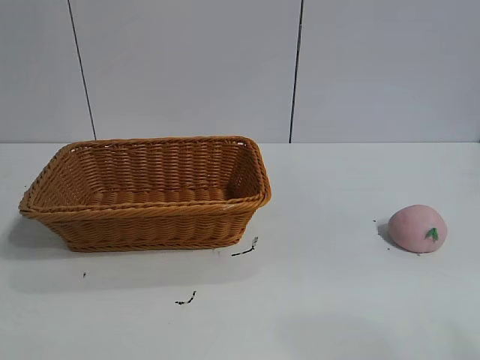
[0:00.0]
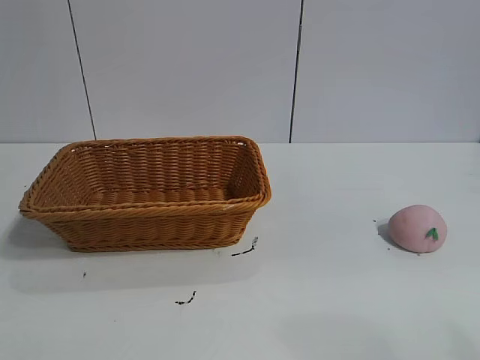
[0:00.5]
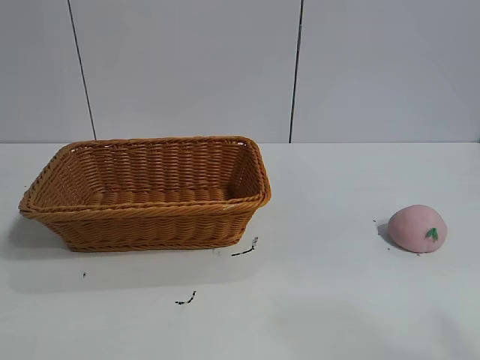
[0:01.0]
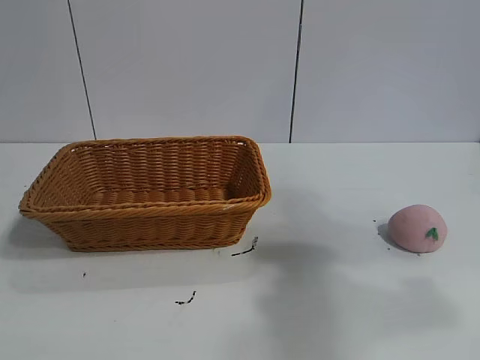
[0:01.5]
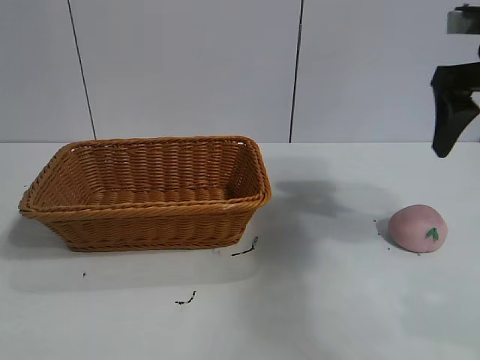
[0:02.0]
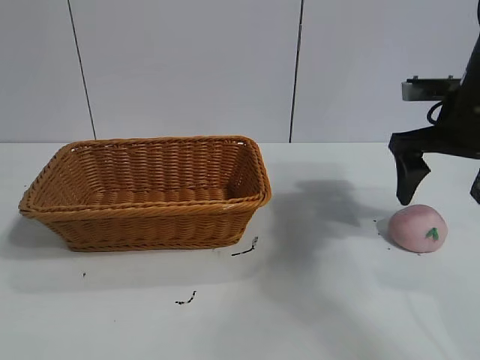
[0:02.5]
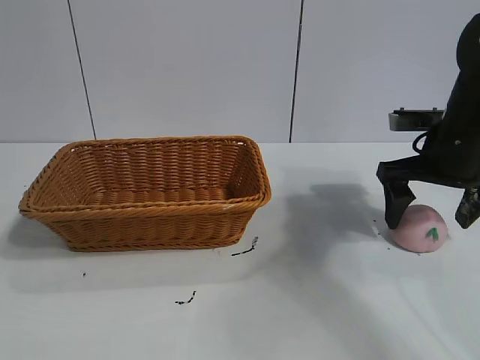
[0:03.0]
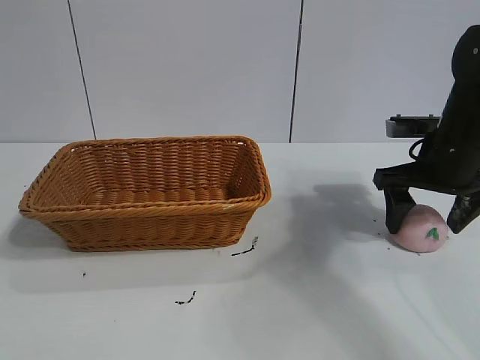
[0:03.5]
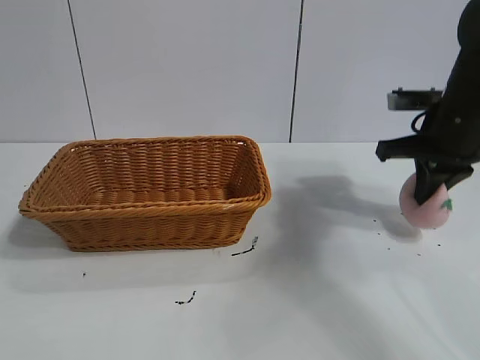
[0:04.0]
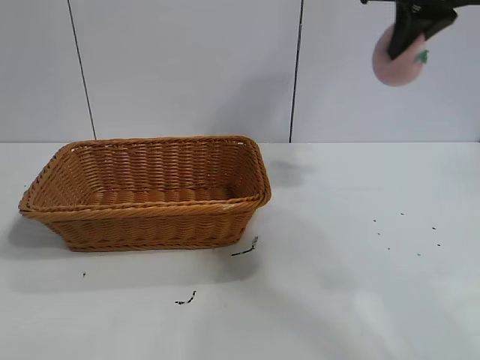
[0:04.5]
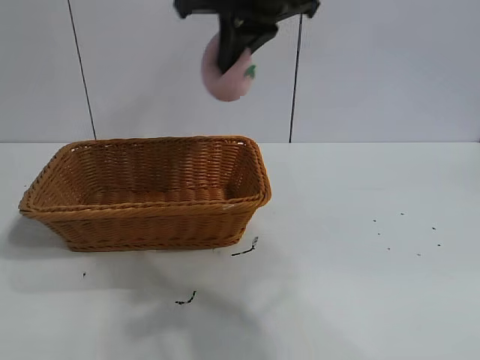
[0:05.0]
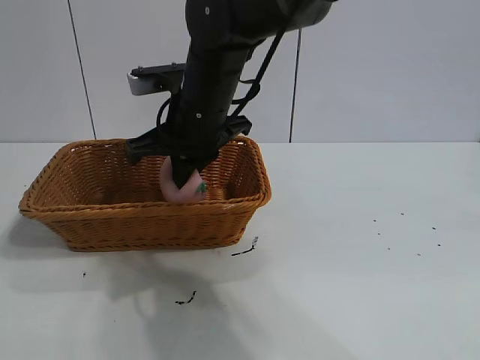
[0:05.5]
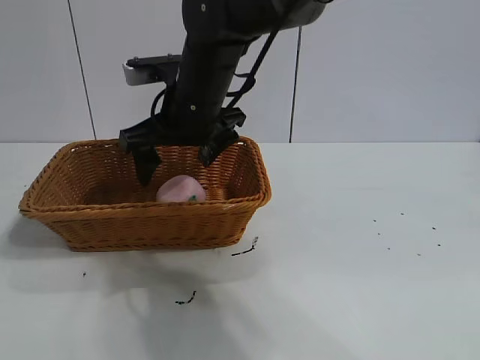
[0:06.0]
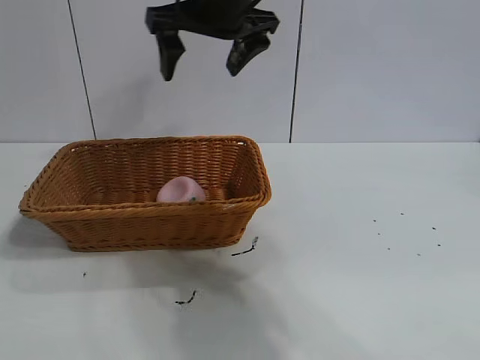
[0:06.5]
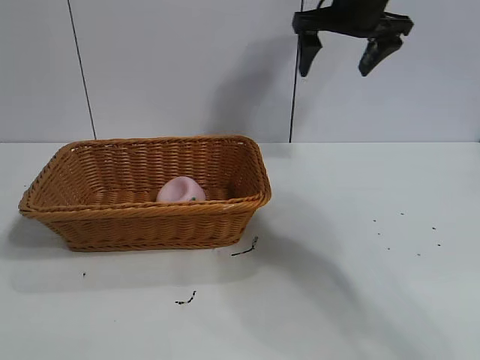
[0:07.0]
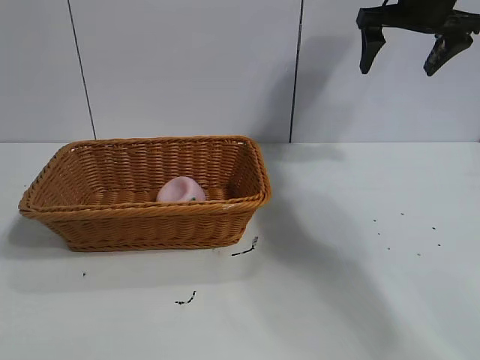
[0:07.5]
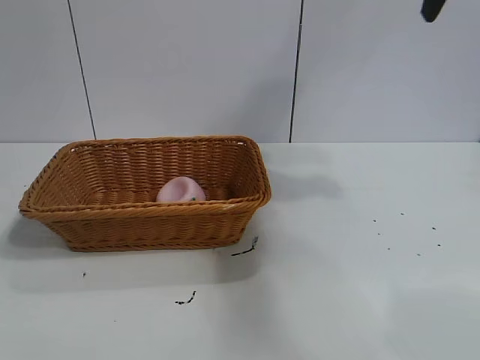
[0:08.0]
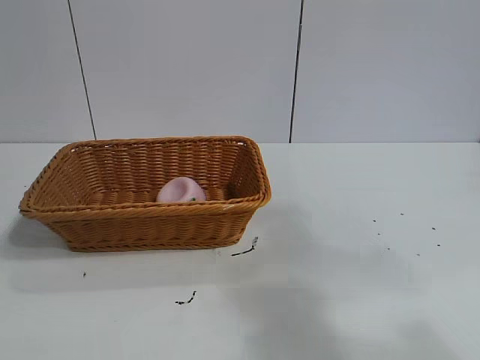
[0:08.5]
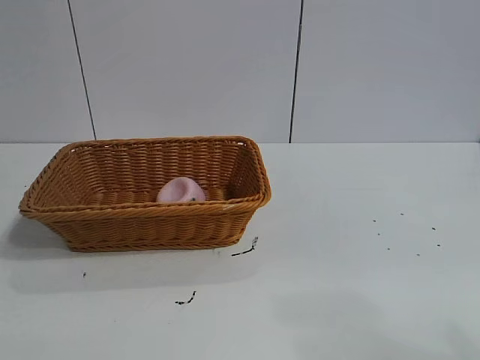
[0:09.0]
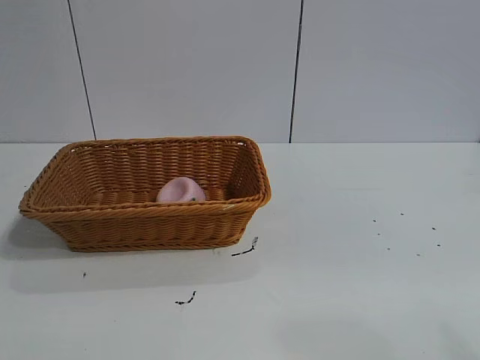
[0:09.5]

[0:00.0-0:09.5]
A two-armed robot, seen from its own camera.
Task of the whole recording: pick up the peach and put it into the basket.
Step, 0:01.0 to 0:04.0: Grasp the peach with right gripper.
Step, 0:04.5 to 0:06.0: Place the peach in the basket with right gripper.

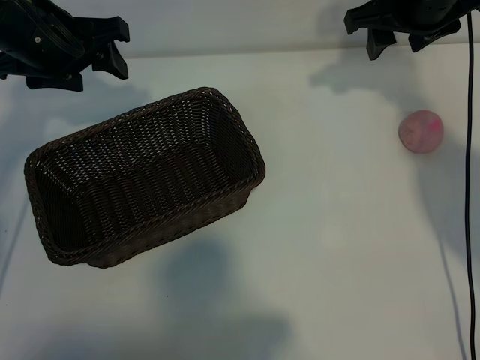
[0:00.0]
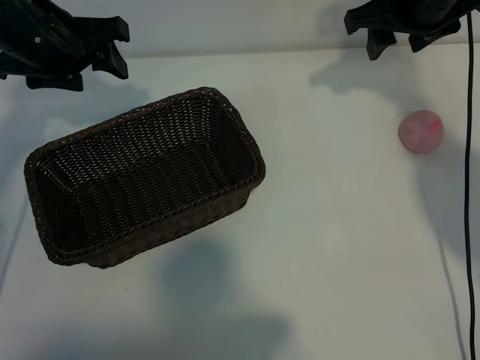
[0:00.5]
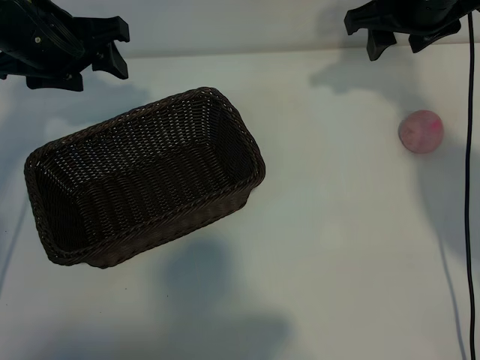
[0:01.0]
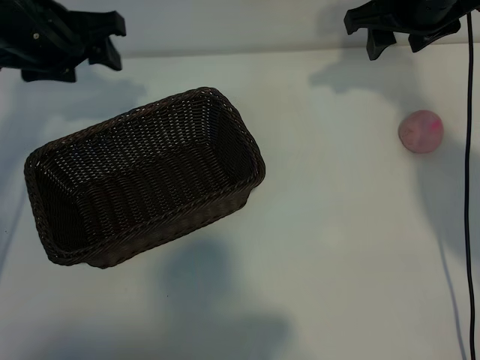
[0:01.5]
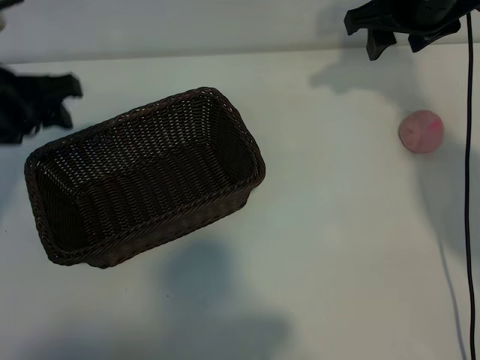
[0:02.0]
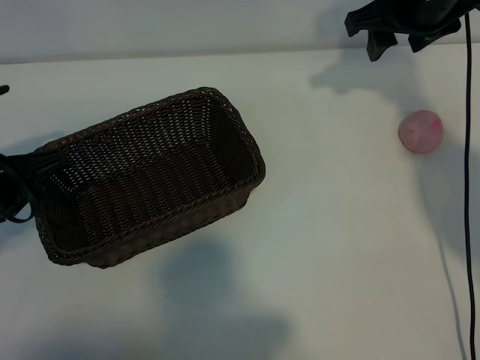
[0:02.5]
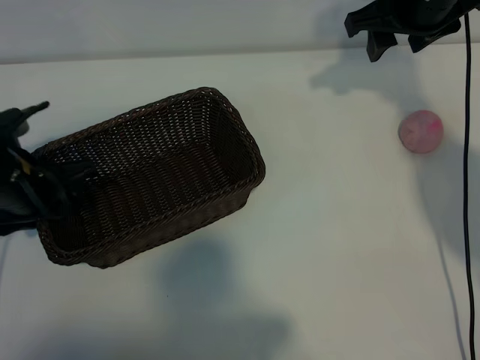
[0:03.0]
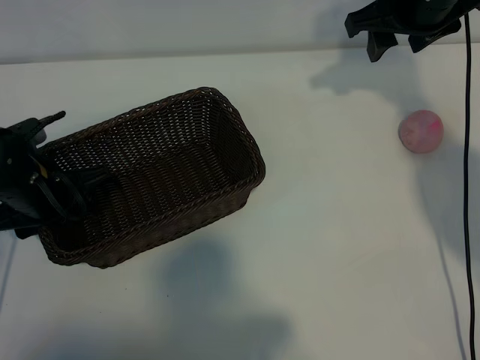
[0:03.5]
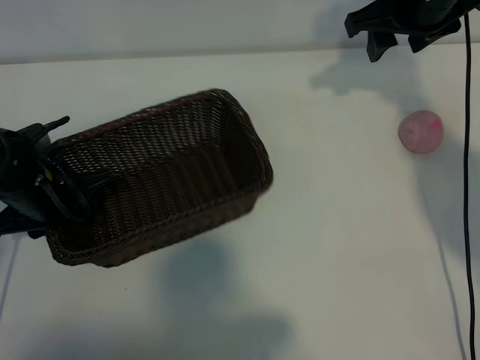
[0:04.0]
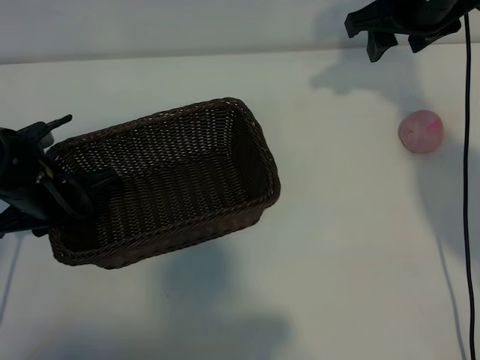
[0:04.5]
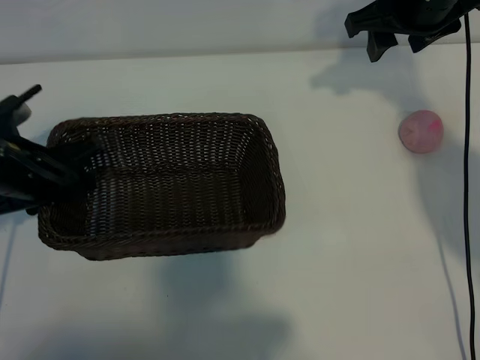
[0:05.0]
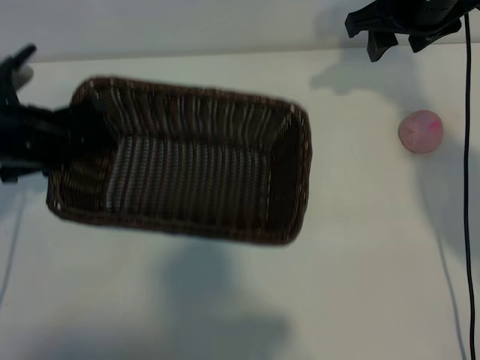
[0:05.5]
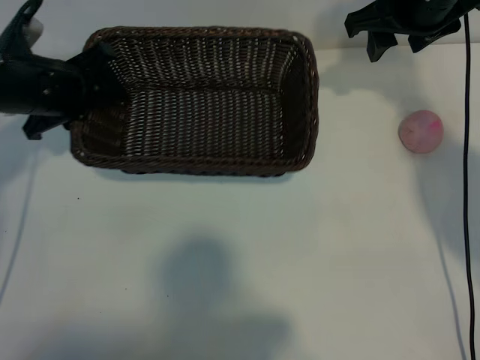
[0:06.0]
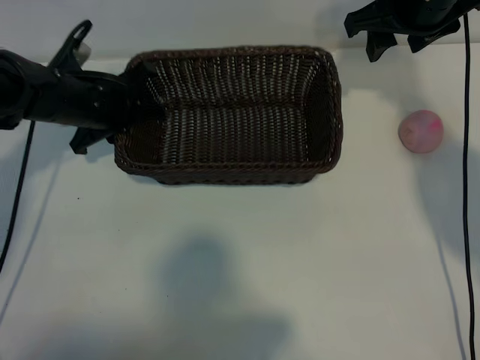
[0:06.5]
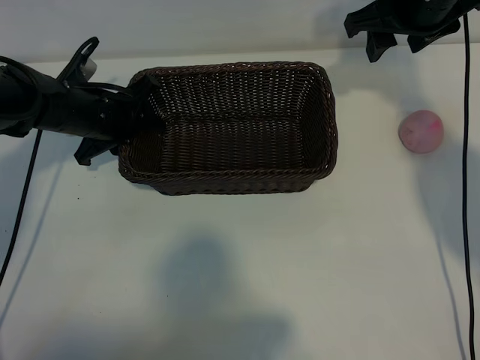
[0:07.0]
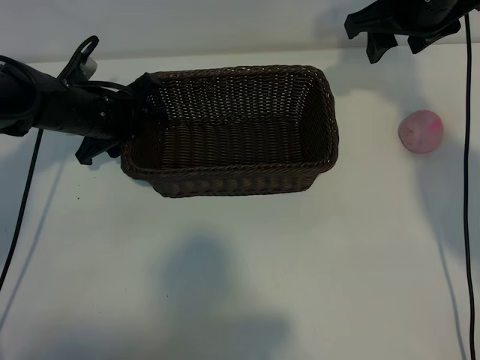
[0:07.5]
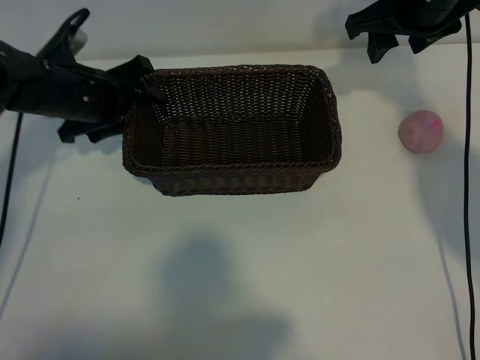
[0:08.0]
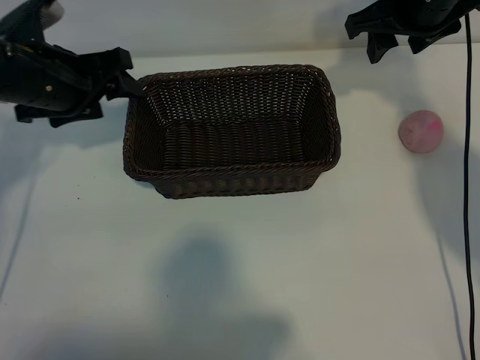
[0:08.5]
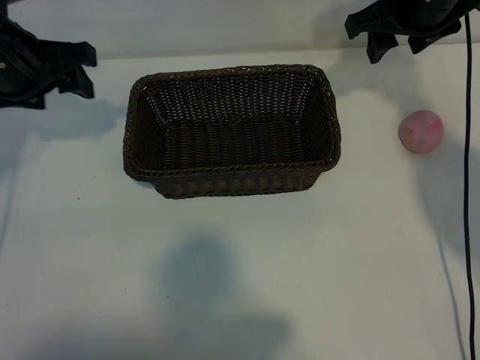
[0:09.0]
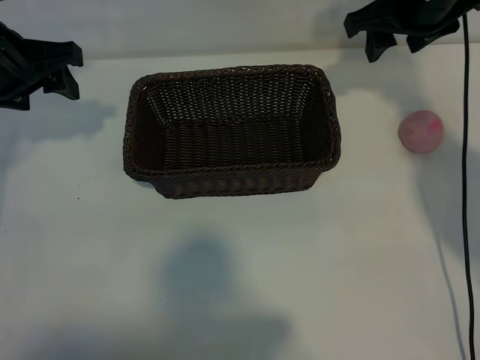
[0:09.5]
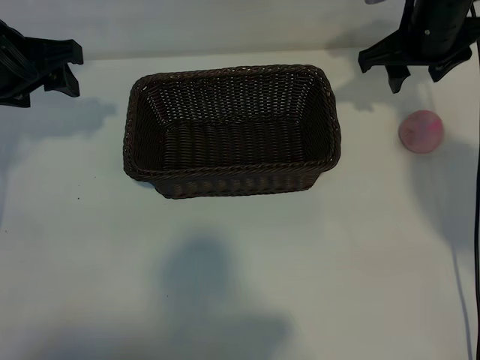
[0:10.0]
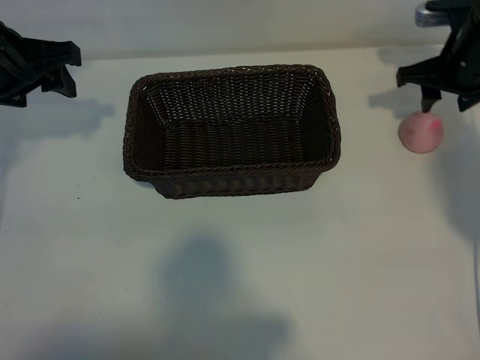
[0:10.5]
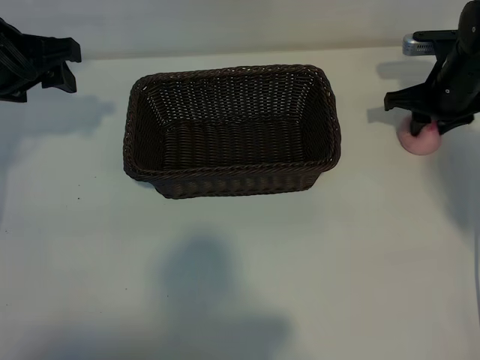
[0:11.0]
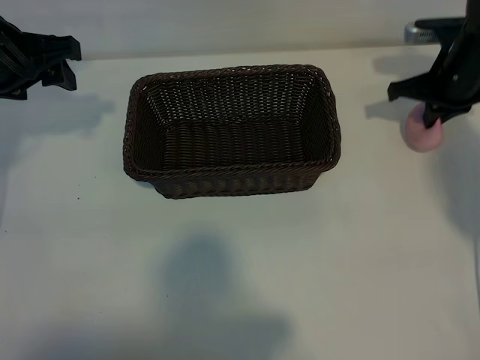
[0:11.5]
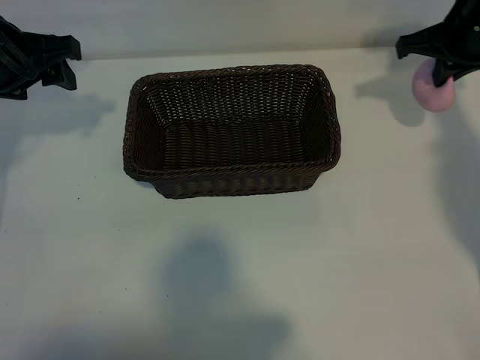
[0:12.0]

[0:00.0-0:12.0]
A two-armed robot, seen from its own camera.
Task of the whole recording: pick up the peach and put it into the basket.
Step, 0:01.5 to 0:04.0: Grasp the basket with left gripper.
Step, 0:04.5 to 0:07.5: Place the basket in the center of view with left gripper.
Step, 0:08.0 to 0:11.0: Grasp the peach with right gripper.

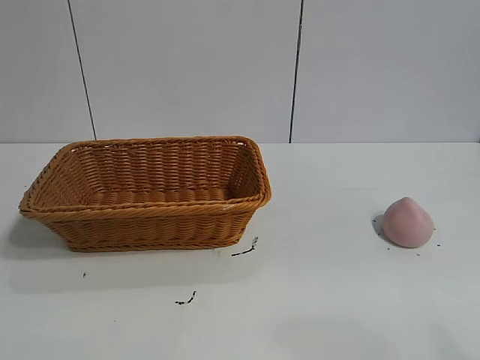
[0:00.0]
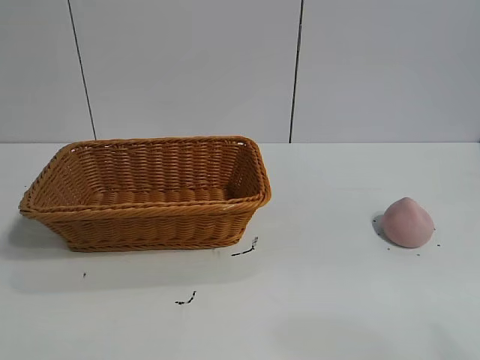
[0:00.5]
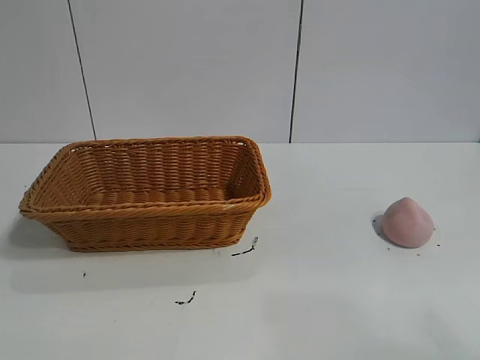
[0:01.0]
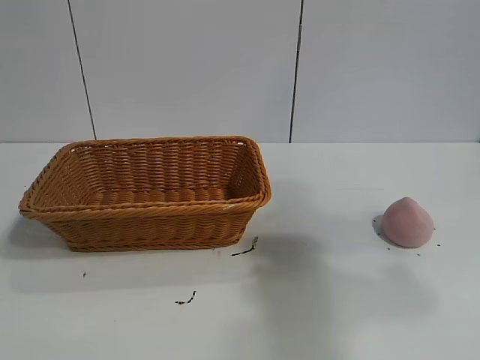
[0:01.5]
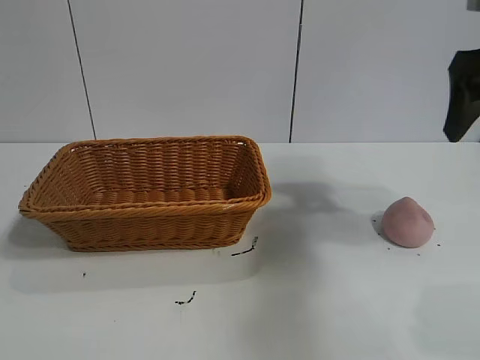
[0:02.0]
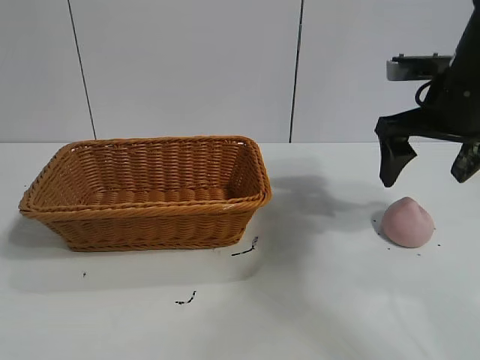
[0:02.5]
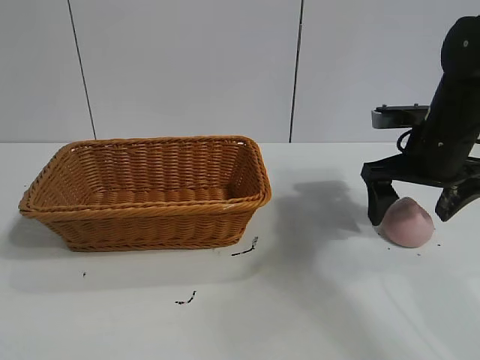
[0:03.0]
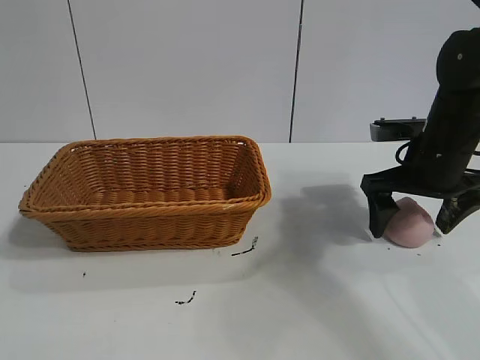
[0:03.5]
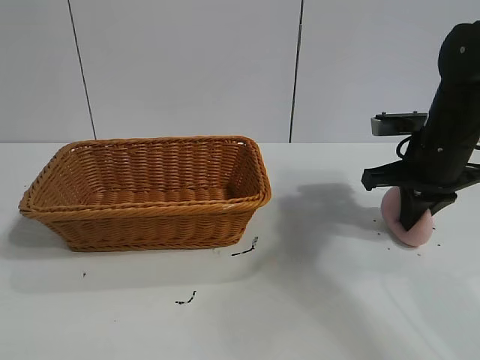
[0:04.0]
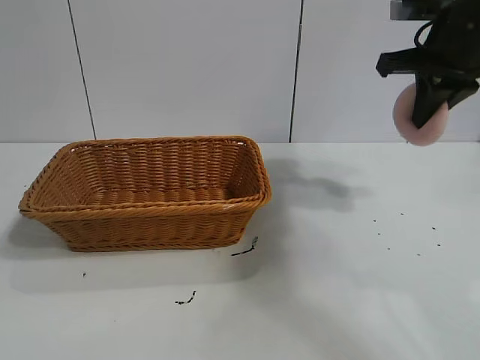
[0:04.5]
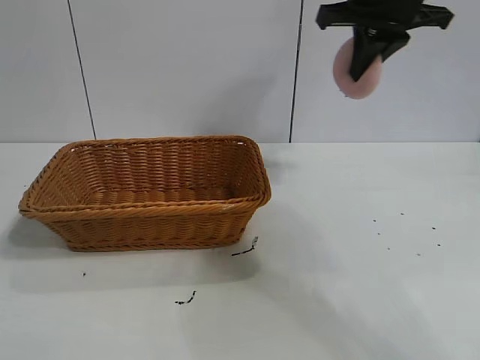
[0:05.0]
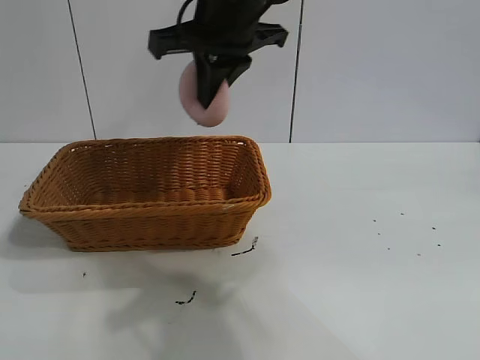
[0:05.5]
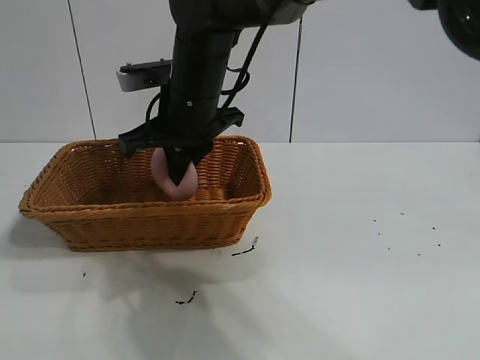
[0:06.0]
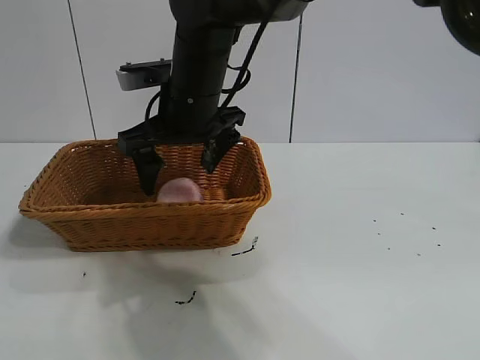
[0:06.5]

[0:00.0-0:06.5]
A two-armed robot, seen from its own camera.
Task of the whole recording: pick up the peach and put it into the basket.
Step, 0:01.0 to 0:04.0: Grasp the peach with right gripper.
